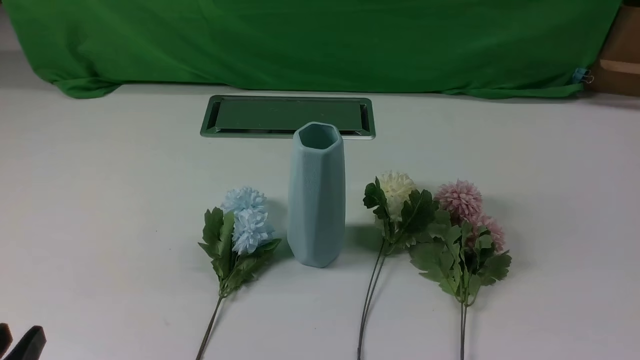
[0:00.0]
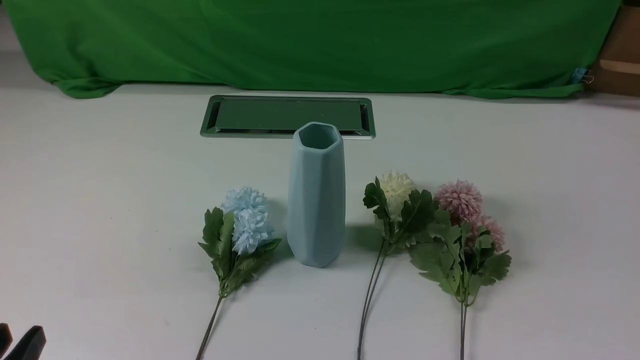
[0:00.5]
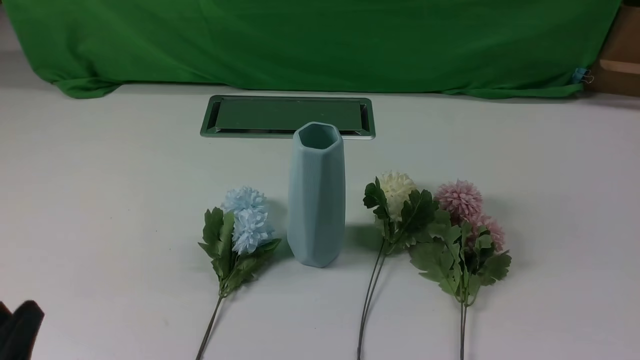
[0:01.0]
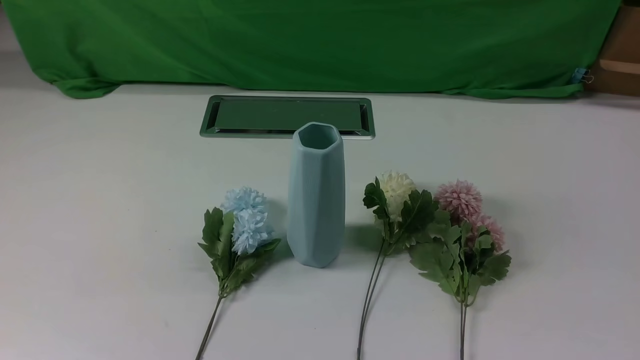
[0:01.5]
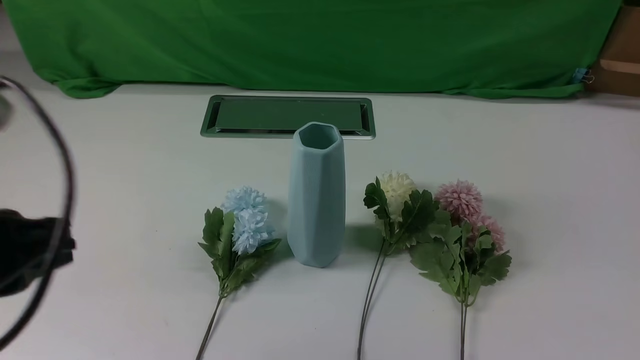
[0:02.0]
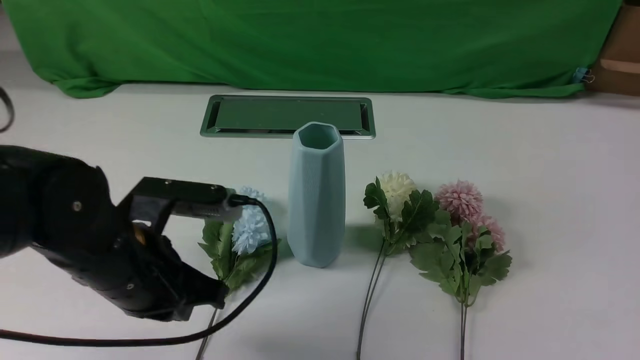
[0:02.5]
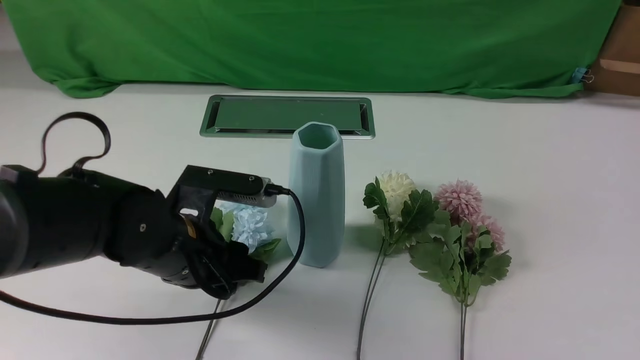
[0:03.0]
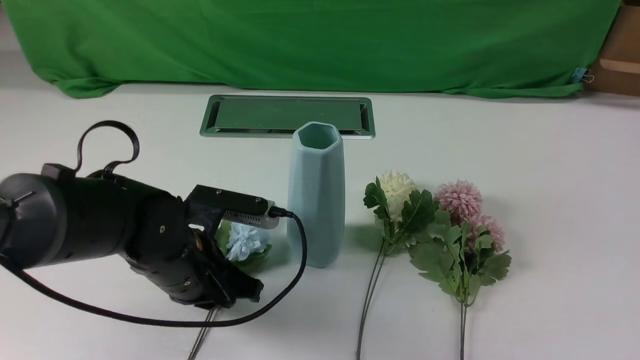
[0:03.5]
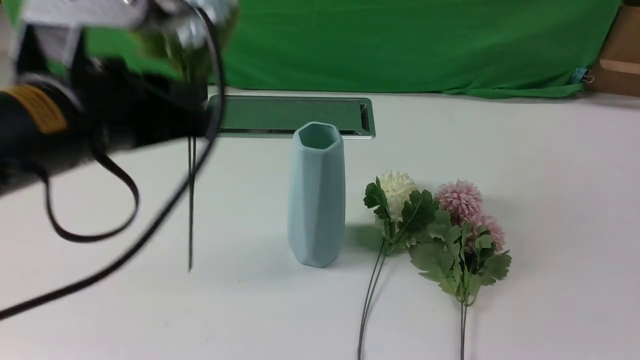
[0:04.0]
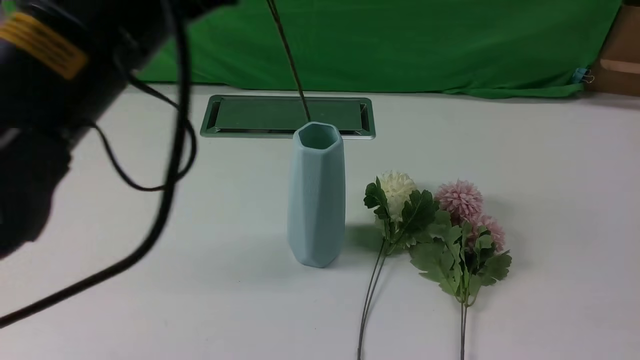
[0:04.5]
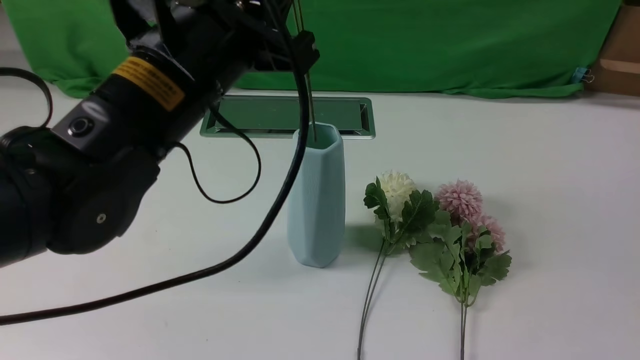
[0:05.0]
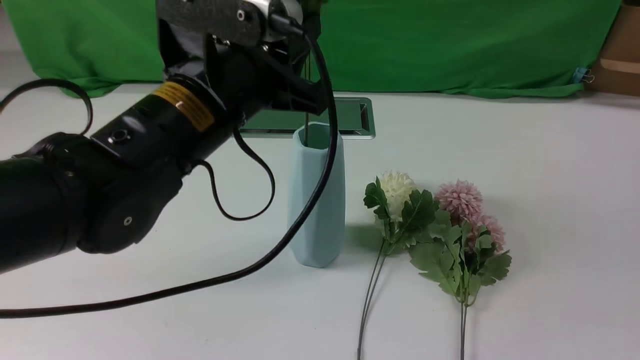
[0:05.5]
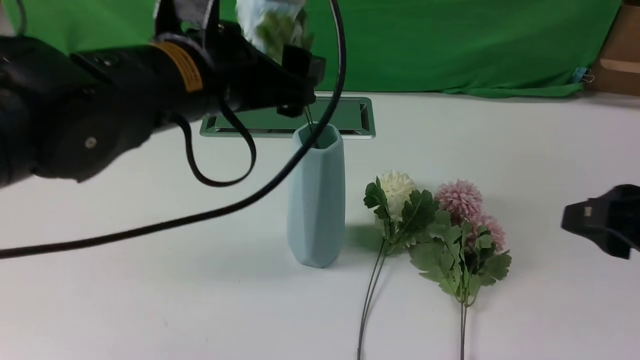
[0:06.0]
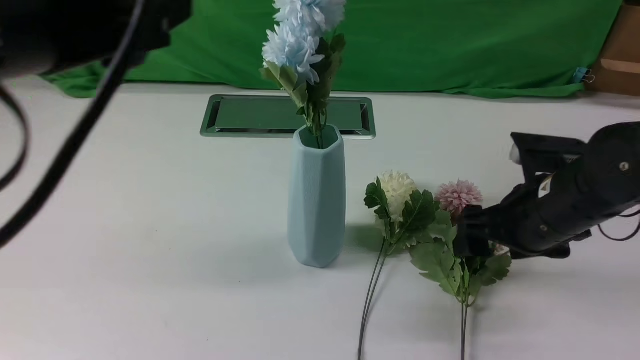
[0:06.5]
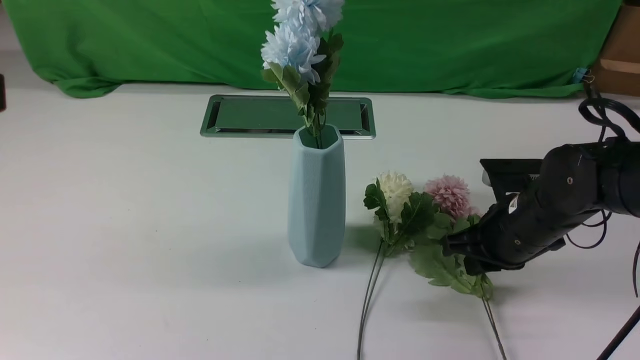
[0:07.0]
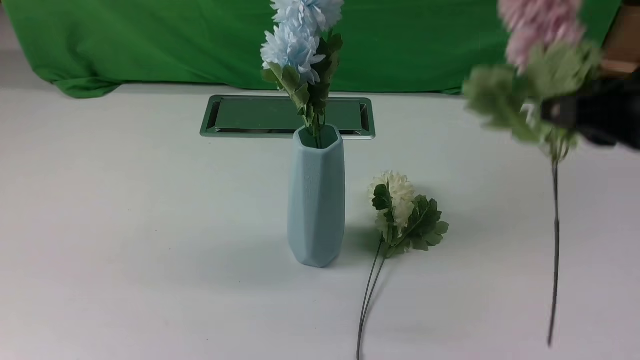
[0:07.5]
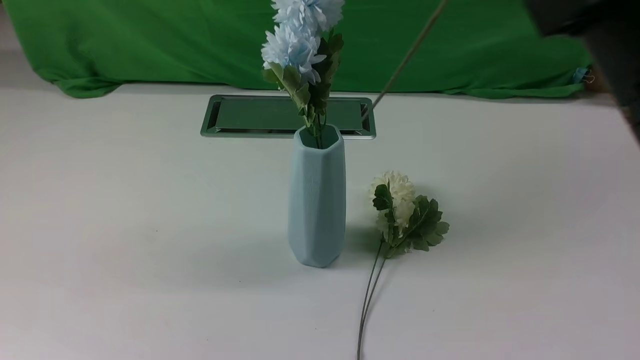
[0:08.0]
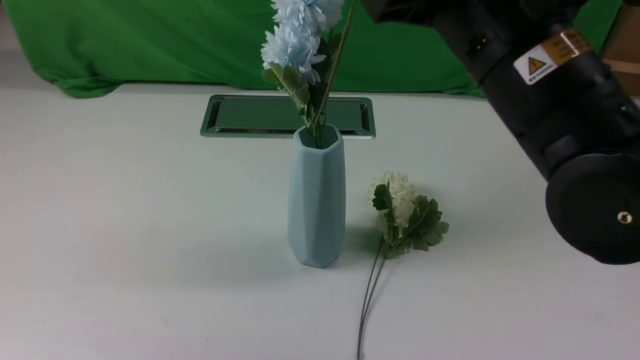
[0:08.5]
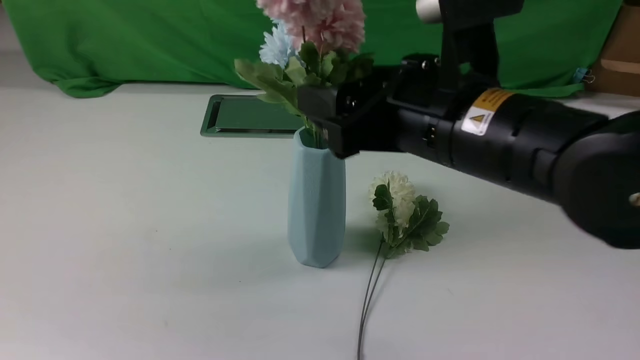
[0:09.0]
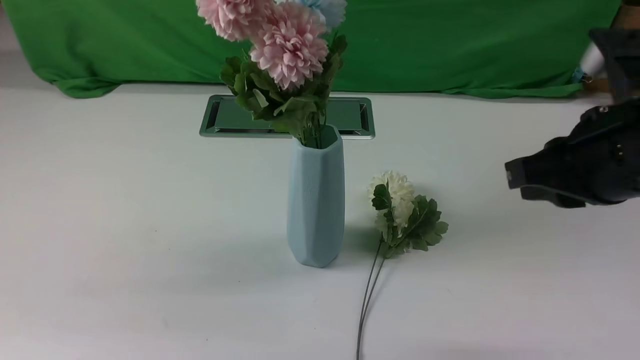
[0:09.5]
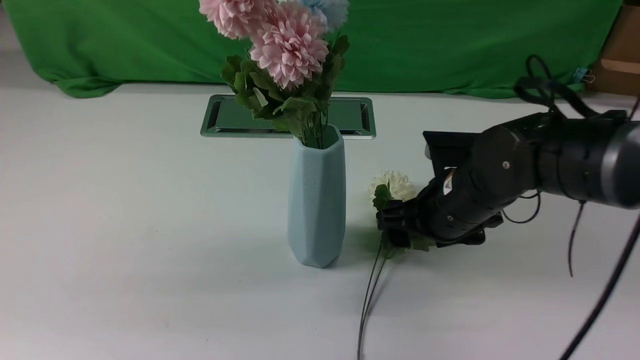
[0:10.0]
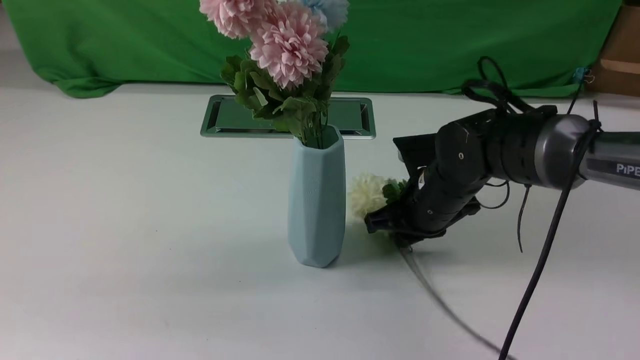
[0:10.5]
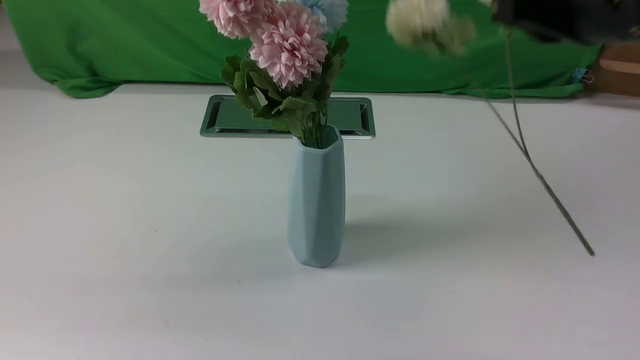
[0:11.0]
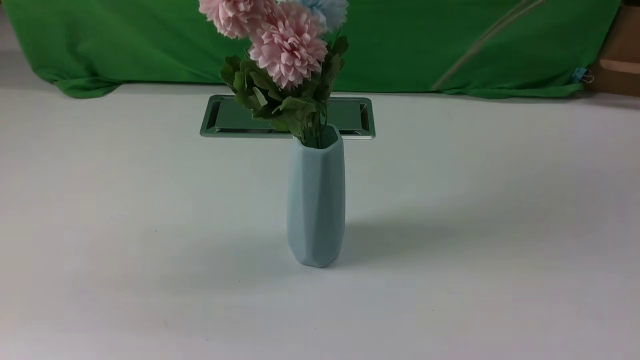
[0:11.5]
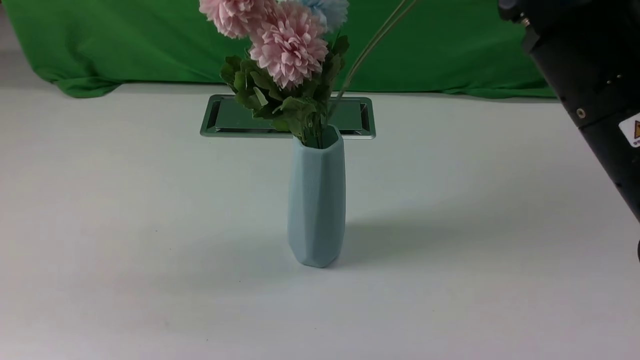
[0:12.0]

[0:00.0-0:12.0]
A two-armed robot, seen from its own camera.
Task of the whole recording: insert the flowers into the vase on the white table.
Step, 0:00.0 to 0:03.5: use the left arm to grab a bunch of fresh flowers.
Step, 0:04.0 to 0:06.0: use the left arm to insert the flowers into the vase.
Step, 0:06.5 to 0:07.0: use the right arm to grab a bunch of fresh flowers.
Step, 0:07.5 to 0:09.0: use the right arm to insert the flowers into the vase.
Step, 0:09.5 to 0:10.5: use the right arm to grab a bunch of fresh flowers.
0:00.0 to 0:02.0: The left gripper moves upward and forward, approximately 15 cm, and closes its fingers.
0:02.0 to 0:04.0: The right gripper goes roughly 10 cm upward. Meanwhile the left gripper moves to the right and forward, about 10 cm, reaches roughly 15 cm downward, then returns, and opens, then closes once more.
0:04.0 to 0:06.0: The right gripper heads forward, covering about 10 cm, and opens up, while the left gripper ends up roughly 5 cm from where it was, and opens its fingers.
0:06.0 to 0:08.0: The left gripper travels backward, to the left and upward by approximately 20 cm, and closes. Meanwhile the right gripper moves upward and to the left, about 15 cm, and closes.
0:08.0 to 0:10.0: The right gripper travels downward and forward by roughly 25 cm, and opens up.
0:10.0 to 0:12.0: The right gripper shifts some 20 cm upward and backward, and closes its fingers.

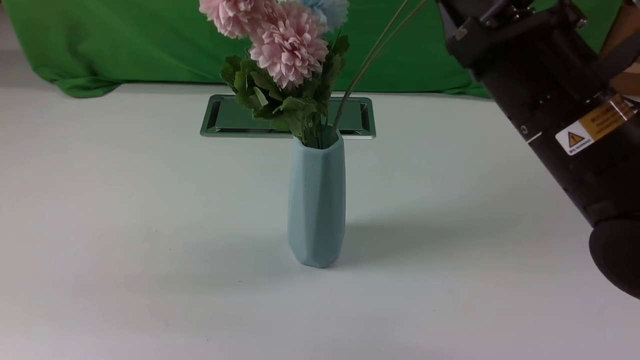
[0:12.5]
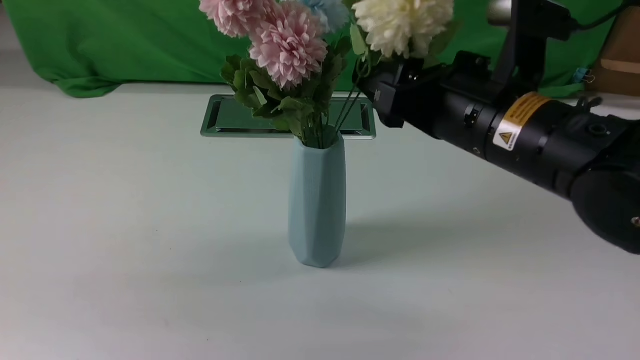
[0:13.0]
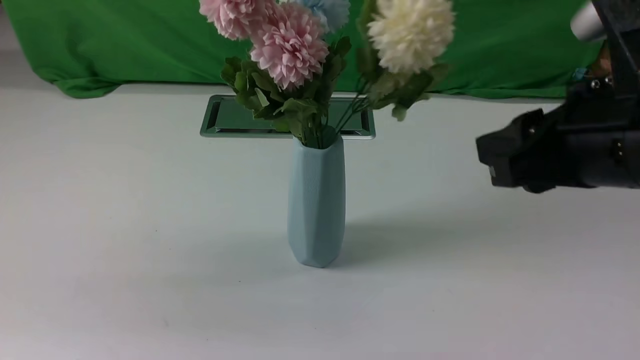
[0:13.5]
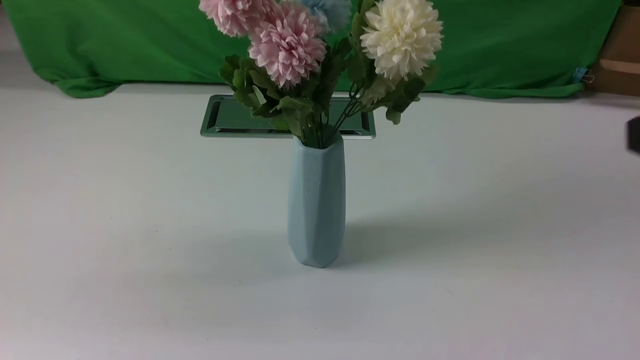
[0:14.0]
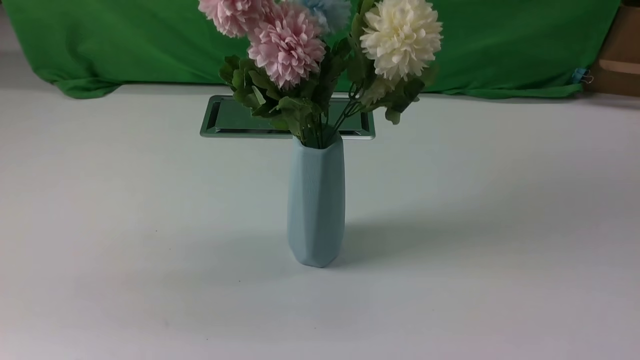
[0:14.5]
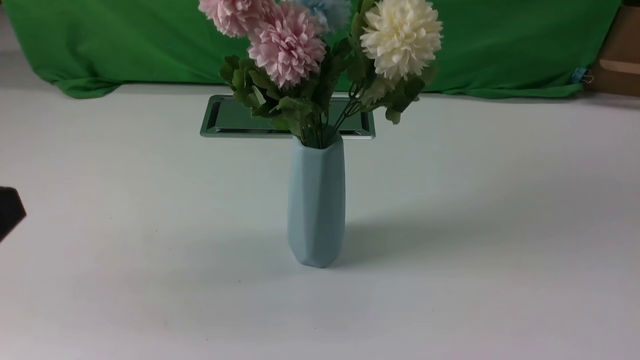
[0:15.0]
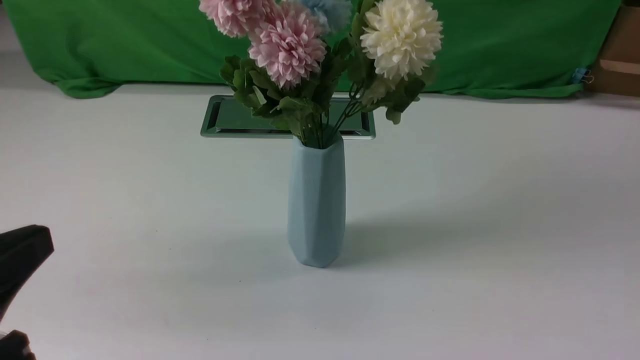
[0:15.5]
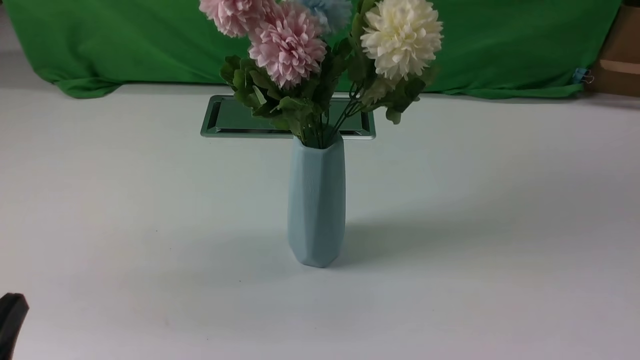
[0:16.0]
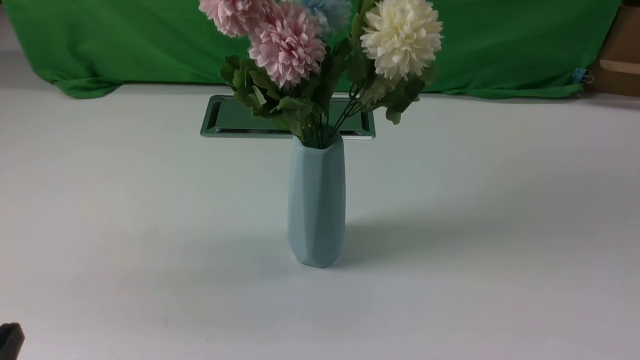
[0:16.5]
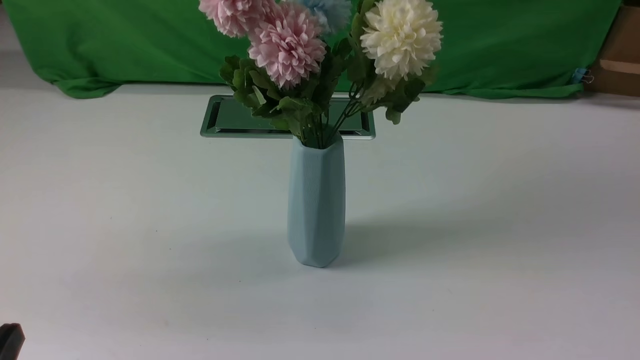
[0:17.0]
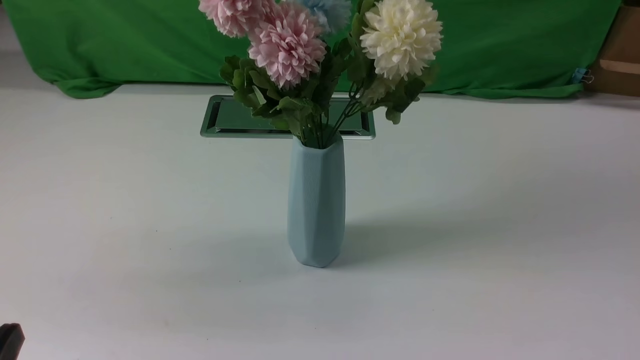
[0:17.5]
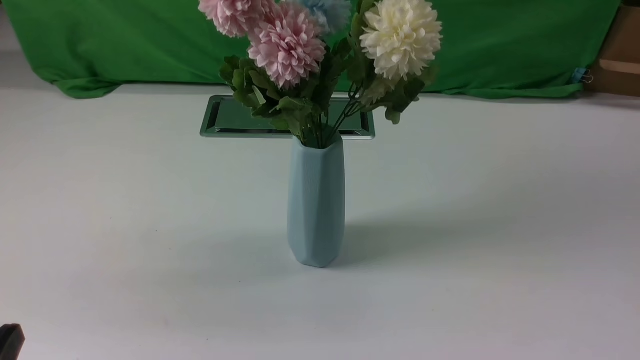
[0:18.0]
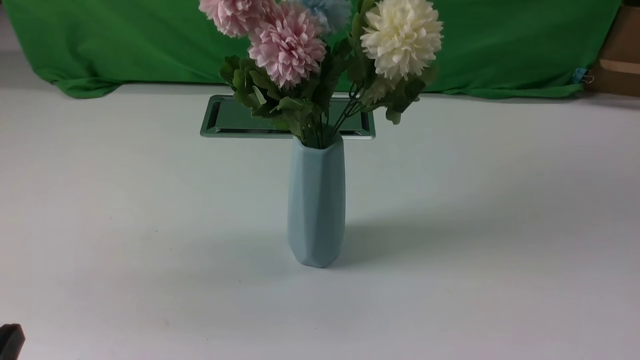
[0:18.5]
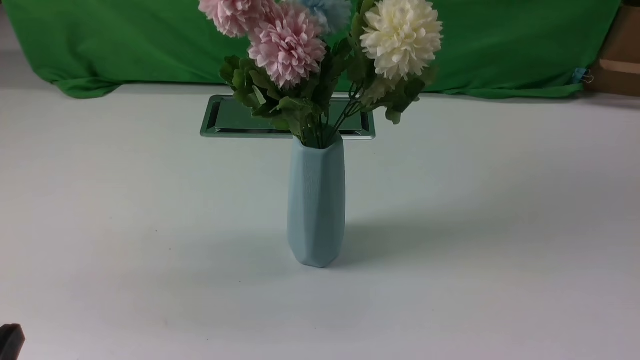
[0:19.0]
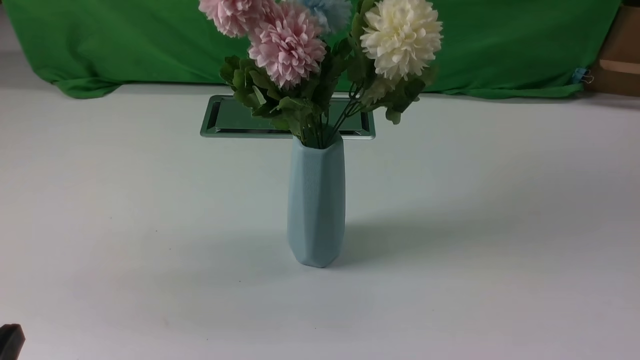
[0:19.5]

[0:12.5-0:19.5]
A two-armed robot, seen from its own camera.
Task of the whole recording: insert the flowers into the vase on the white table.
0:12.5 to 0:14.5: The right gripper shifts about 30 cm backward and to the right, and opens and closes again.
